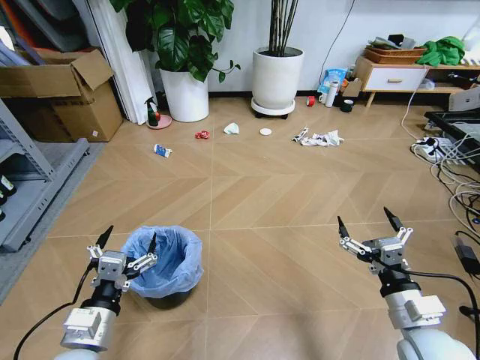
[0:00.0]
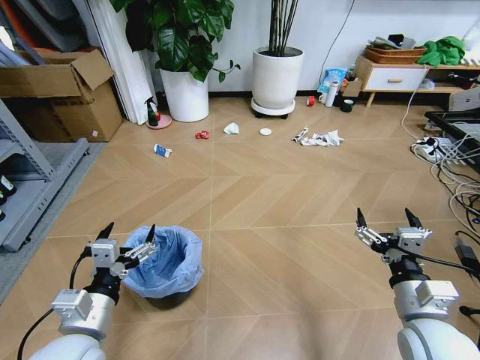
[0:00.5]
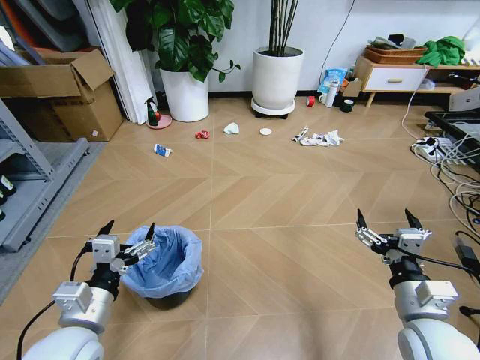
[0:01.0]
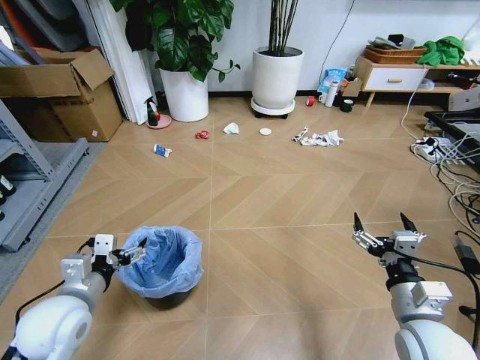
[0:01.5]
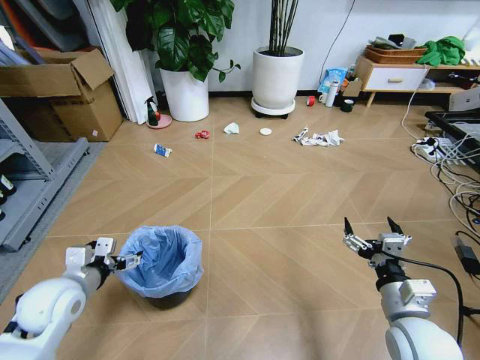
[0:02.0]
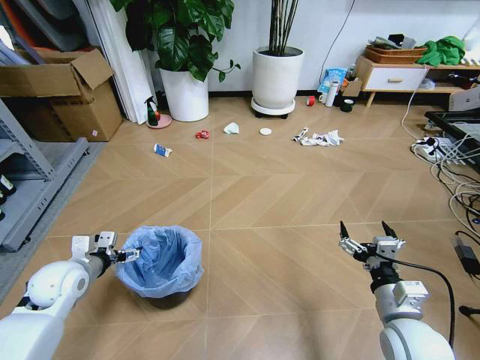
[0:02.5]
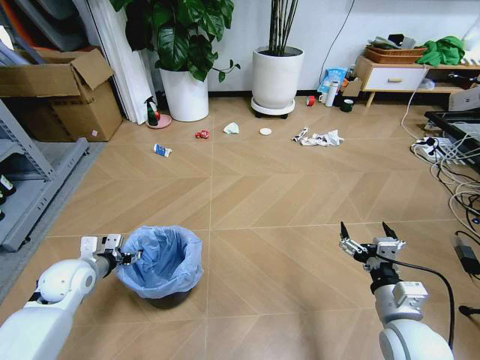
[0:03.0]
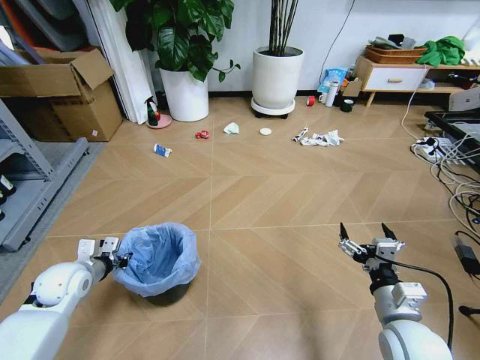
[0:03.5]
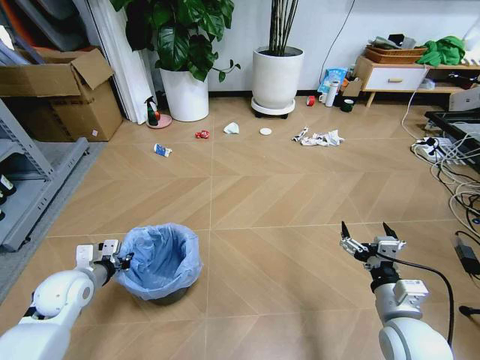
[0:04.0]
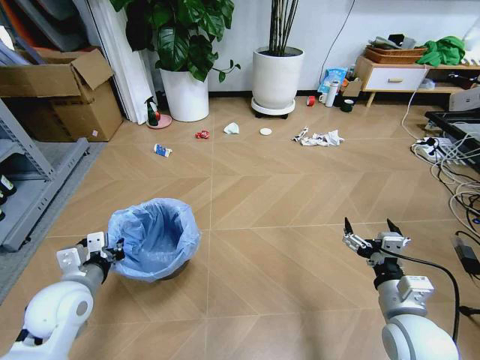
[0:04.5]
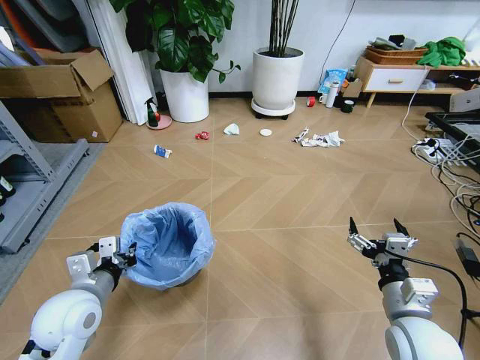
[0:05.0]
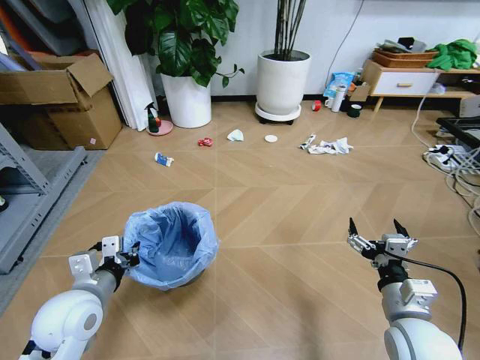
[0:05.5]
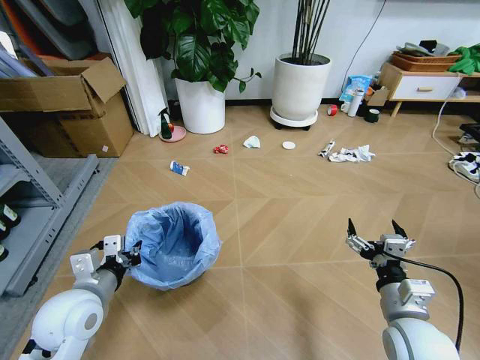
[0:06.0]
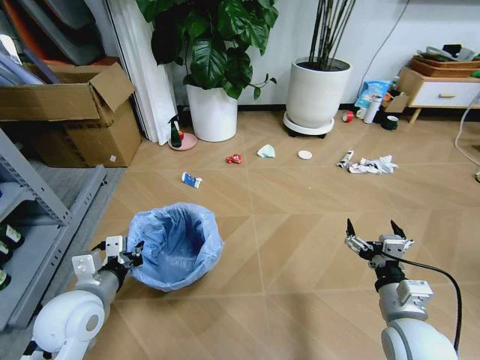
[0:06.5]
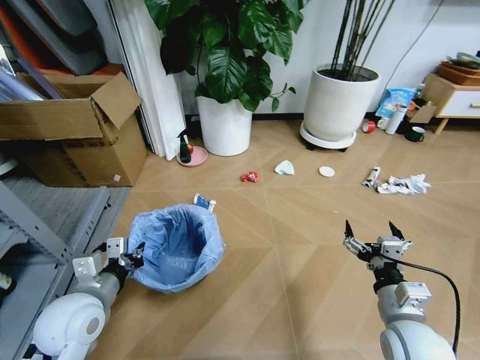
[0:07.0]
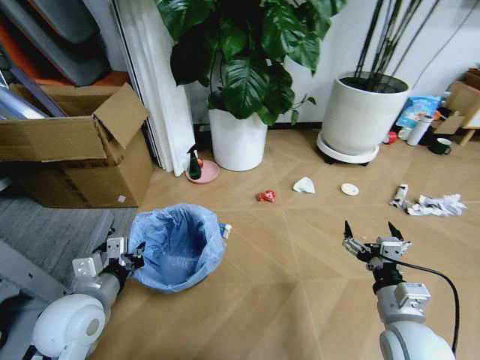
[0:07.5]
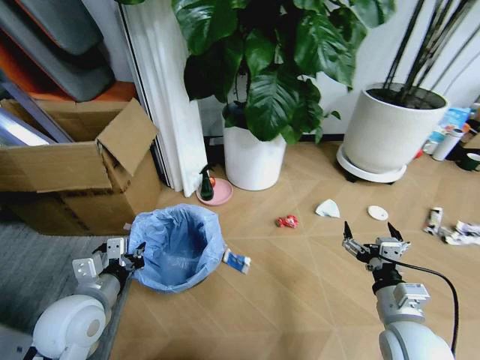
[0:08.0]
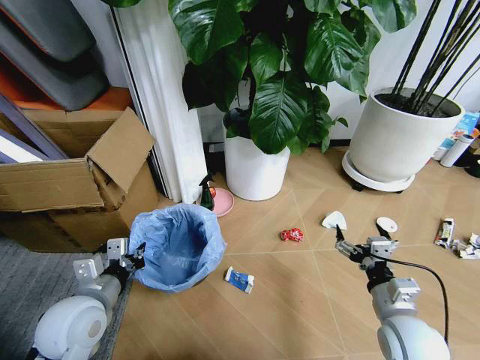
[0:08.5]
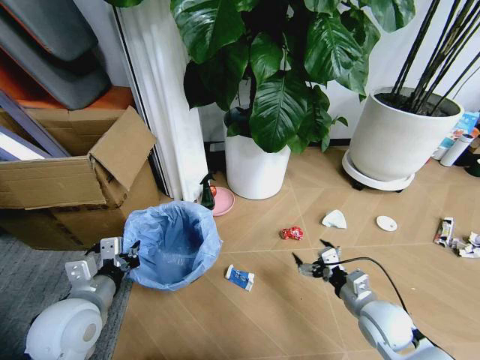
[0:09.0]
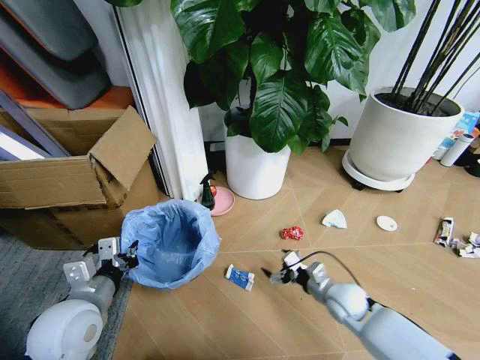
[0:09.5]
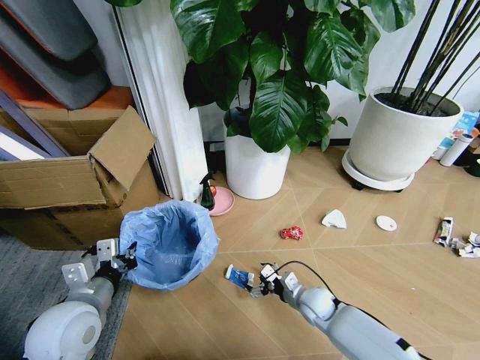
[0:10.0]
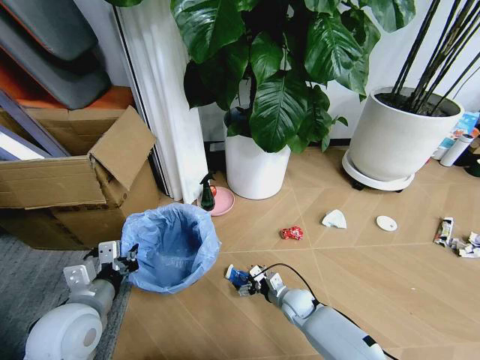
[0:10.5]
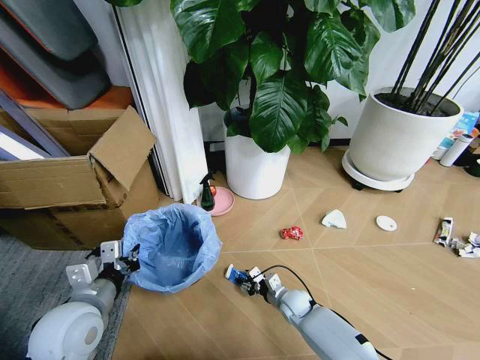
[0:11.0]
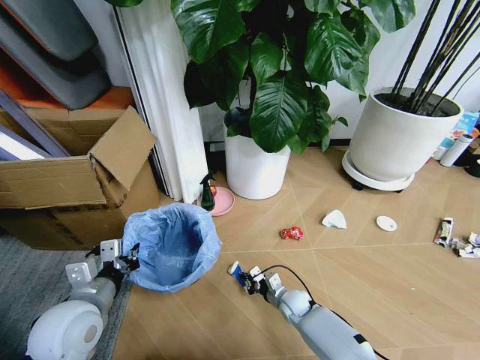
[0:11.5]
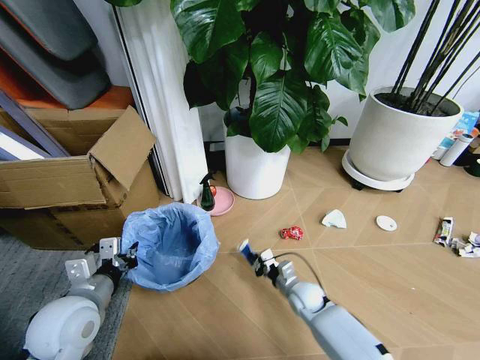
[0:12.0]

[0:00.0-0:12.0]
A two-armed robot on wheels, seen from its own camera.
Task of the whole recording: Pick up the trash bin and place the garbage on the floor into it.
2.0 to 4.0 s: The left gripper shifts by about 5 cm, and closes up.
4.0 to 6.0 s: The left gripper travels to the right, backward and upward by roughly 15 cm.
8.0 to 10.0 s: The right gripper moves downward, forward and to the left, some 25 cm.
10.0 to 12.0 s: The right gripper closes up.

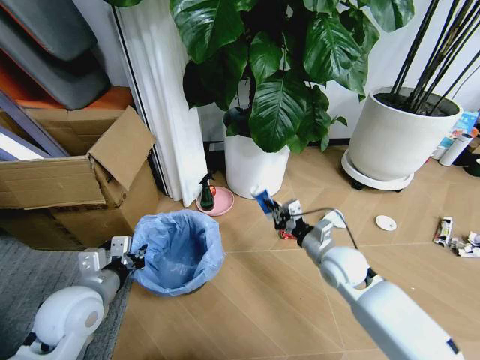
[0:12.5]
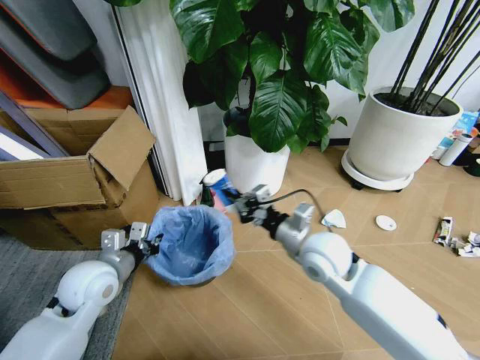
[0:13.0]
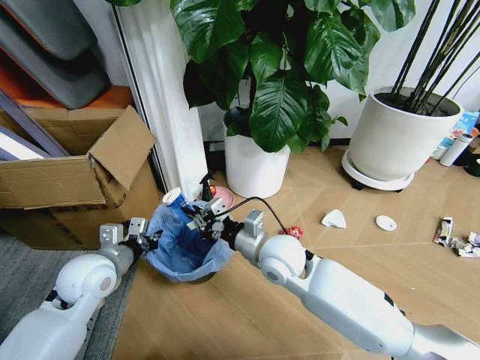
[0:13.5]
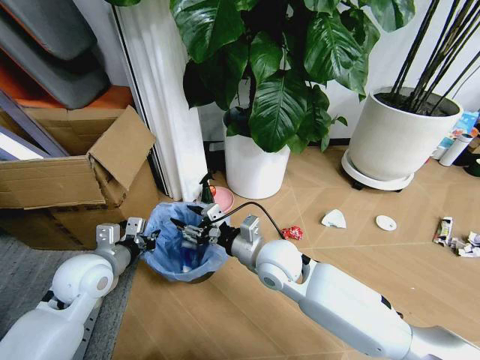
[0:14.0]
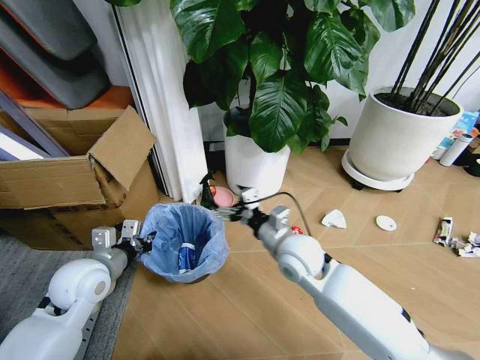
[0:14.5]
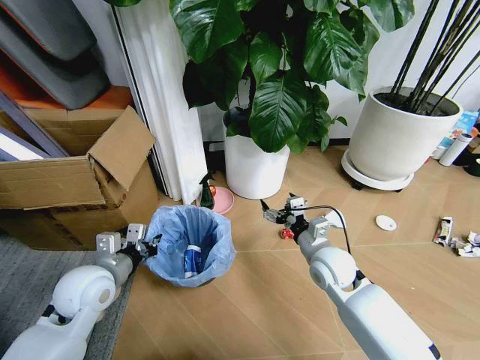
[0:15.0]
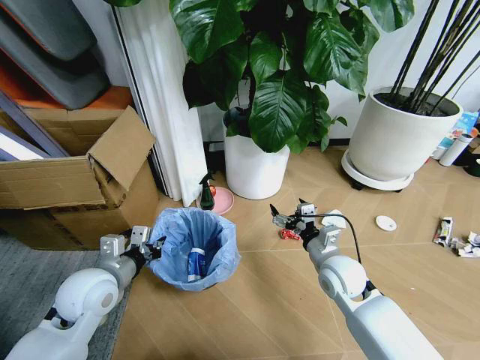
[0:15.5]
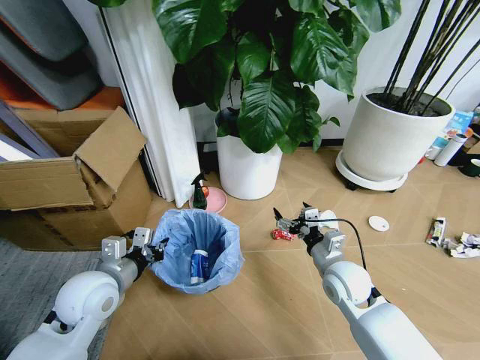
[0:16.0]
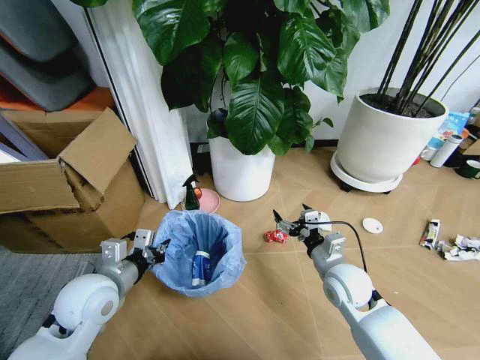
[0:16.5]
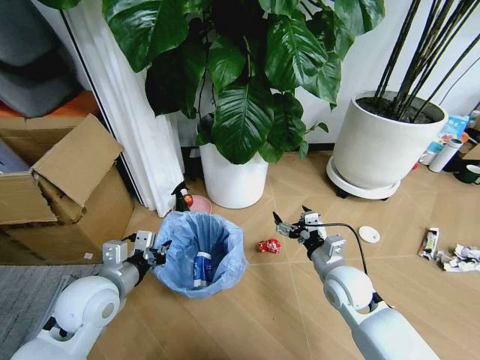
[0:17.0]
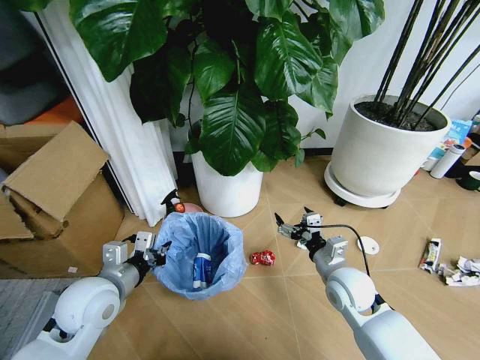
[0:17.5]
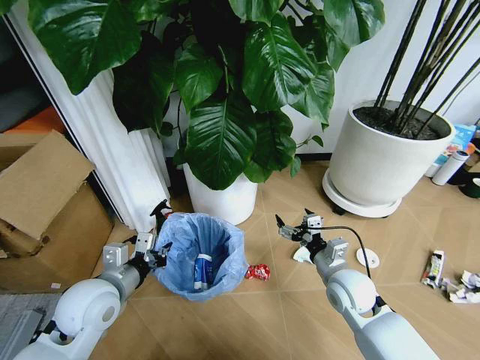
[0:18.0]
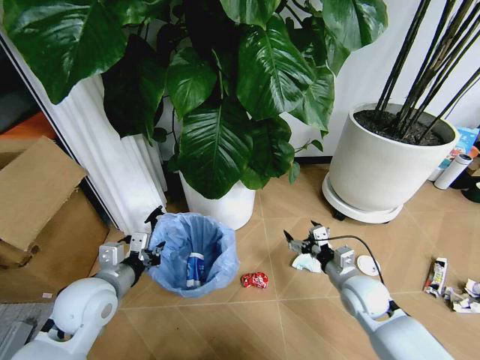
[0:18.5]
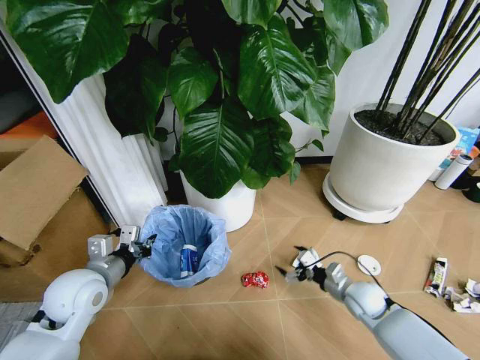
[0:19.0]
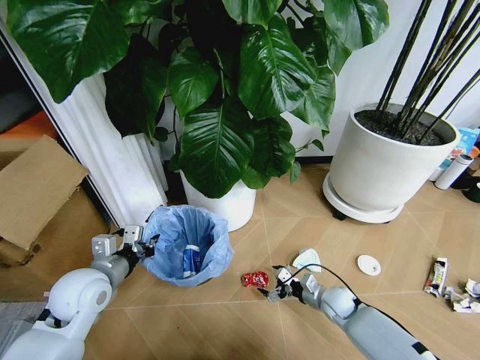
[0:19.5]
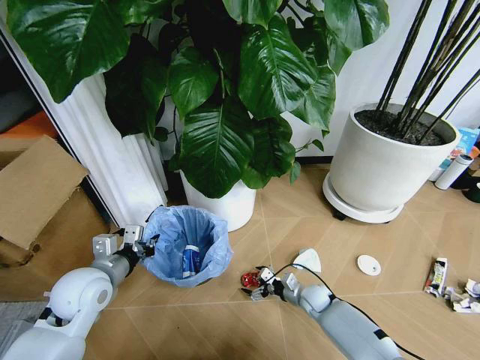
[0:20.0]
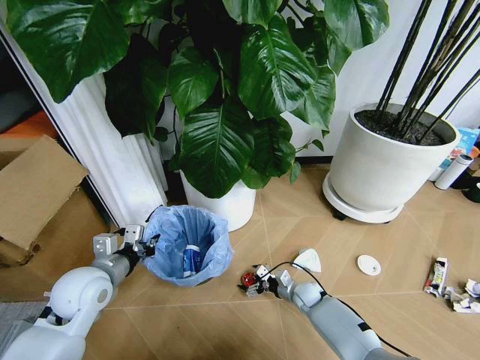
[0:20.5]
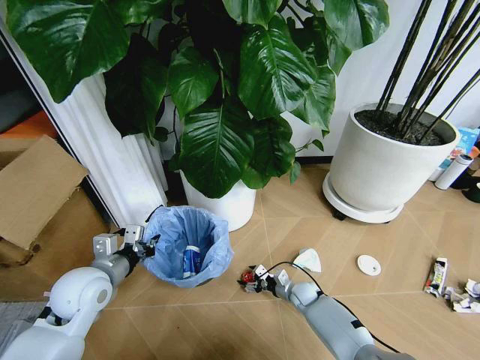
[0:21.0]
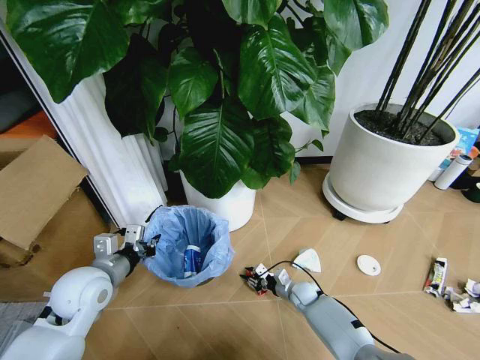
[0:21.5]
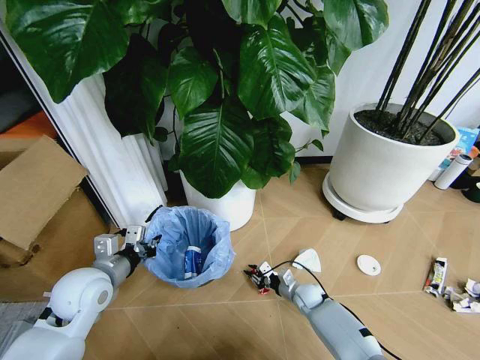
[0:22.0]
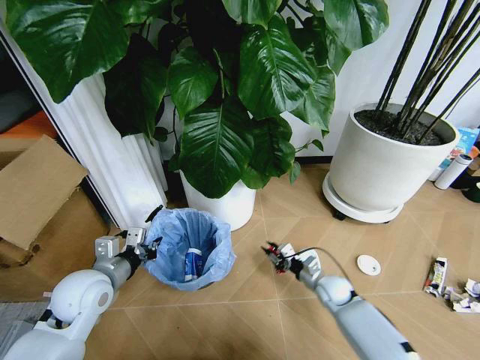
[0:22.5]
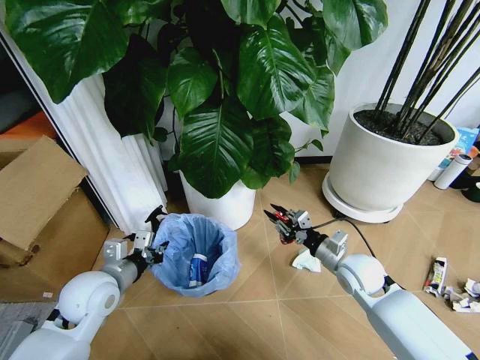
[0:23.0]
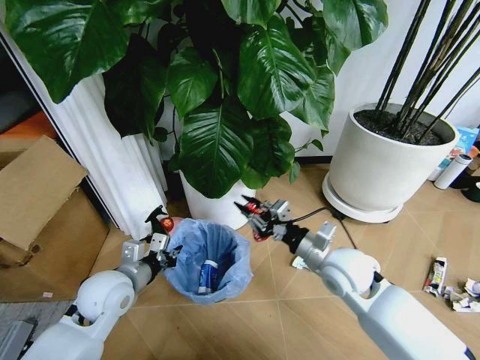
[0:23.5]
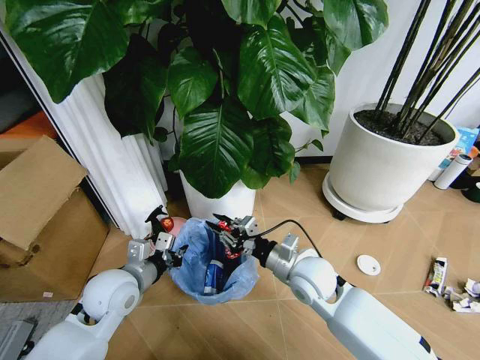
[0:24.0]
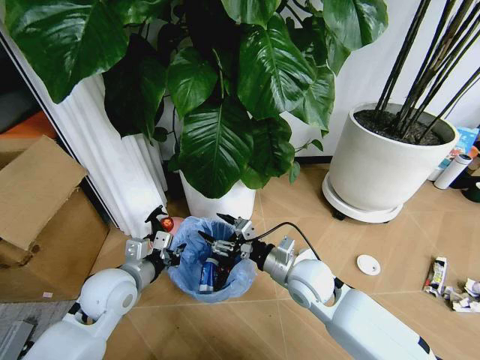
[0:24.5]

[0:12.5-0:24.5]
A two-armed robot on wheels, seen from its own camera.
Task of the whole recording: Pick up the trash bin and place the garbage on the floor into it.
12.5 to 14.5 s: The right gripper shifts some 10 cm to the left and upward, and opens its fingers, while the left gripper moves forward, some 5 cm.
14.5 to 16.5 s: The right gripper shifts approximately 15 cm to the right and downward.
16.5 to 18.5 s: The right gripper moves roughly 5 cm.
18.5 to 20.5 s: The right gripper goes approximately 20 cm downward.
20.5 to 22.5 s: The right gripper shifts roughly 10 cm upward and to the right, and closes up.
22.5 to 24.5 s: The right gripper goes roughly 25 cm upward and to the left, and opens its fingers.

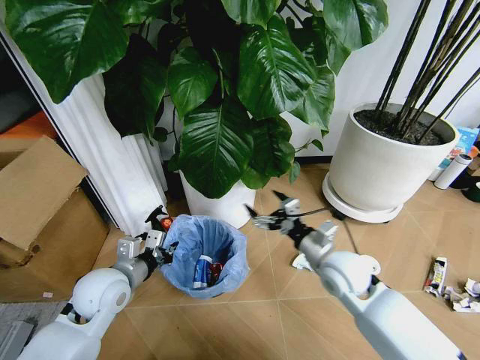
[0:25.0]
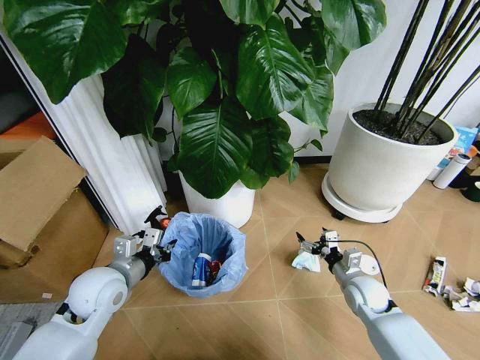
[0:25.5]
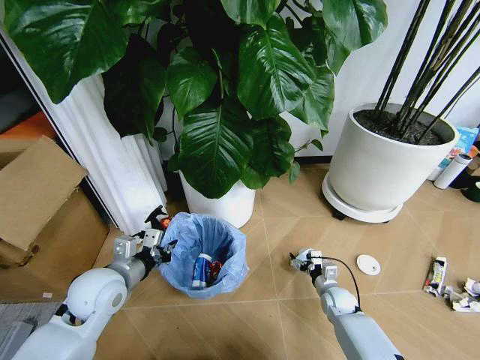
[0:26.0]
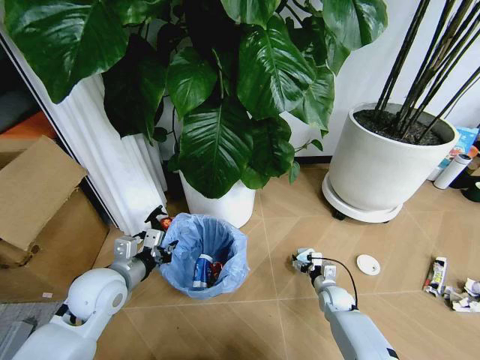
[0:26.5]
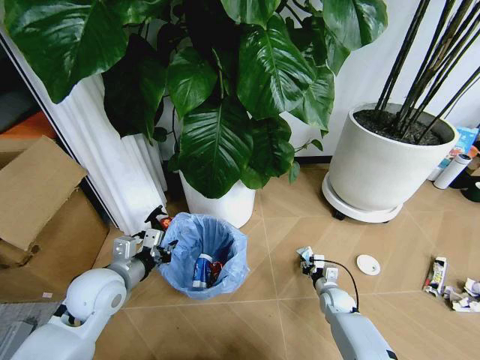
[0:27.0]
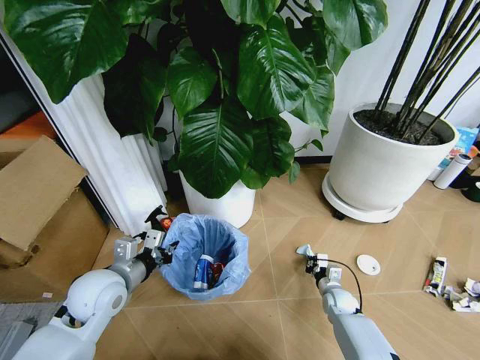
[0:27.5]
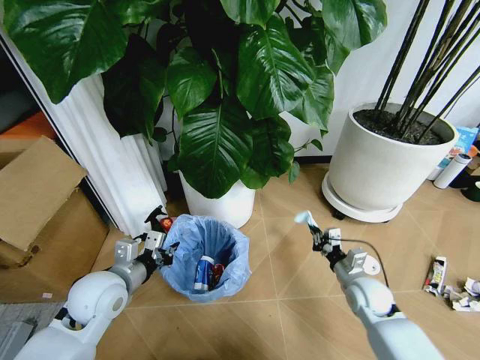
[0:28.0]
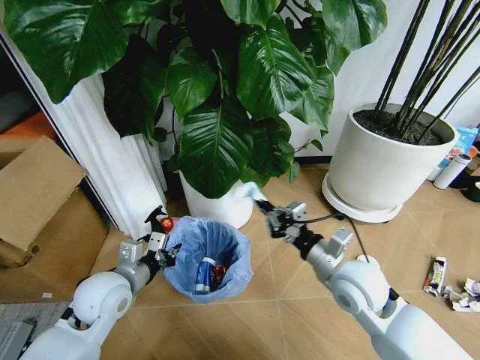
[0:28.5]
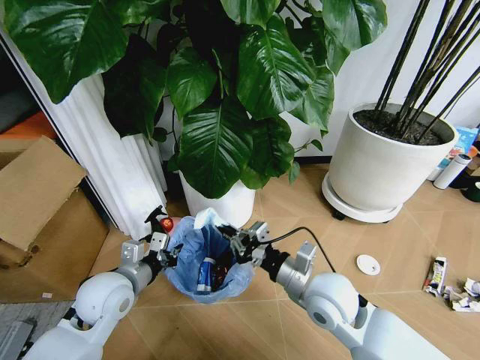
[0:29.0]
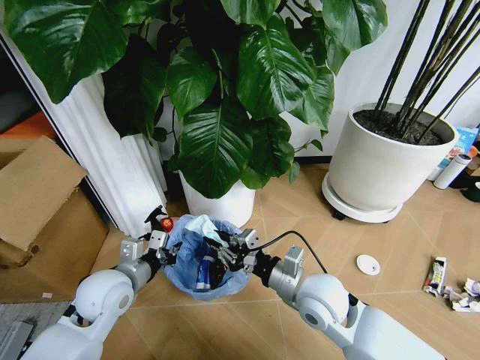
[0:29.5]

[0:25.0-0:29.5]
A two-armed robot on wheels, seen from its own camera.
Task of the whole recording: Pick up the trash bin and place the garbage on the floor into it.
25.0 to 27.0 s: The right gripper is displaced downward by some 30 cm, and closes up.
27.0 to 29.5 s: The right gripper goes approximately 30 cm upward and to the left.
